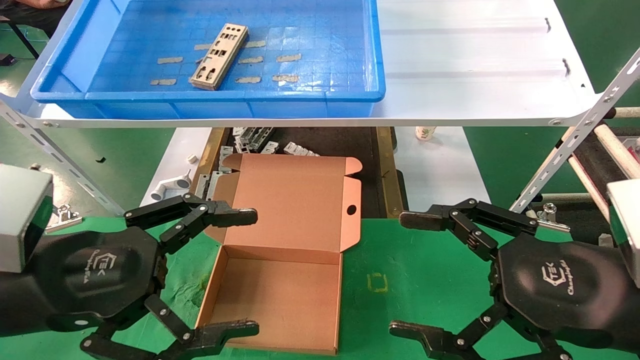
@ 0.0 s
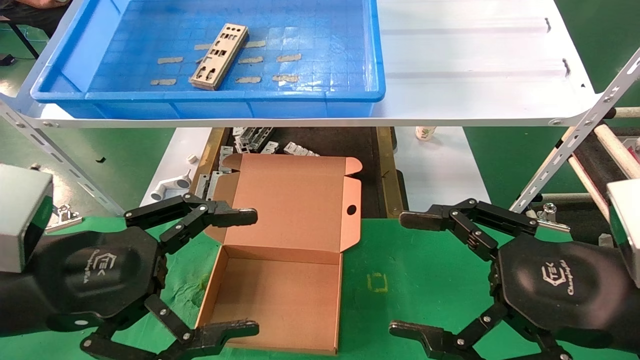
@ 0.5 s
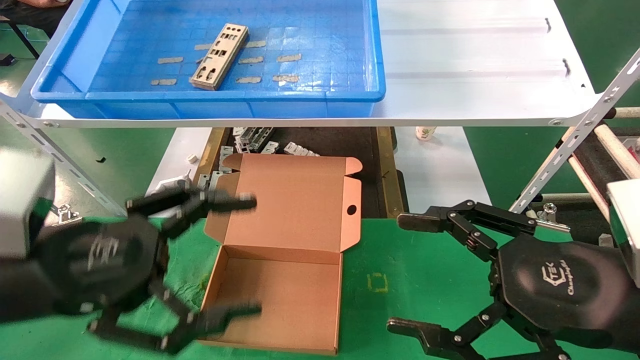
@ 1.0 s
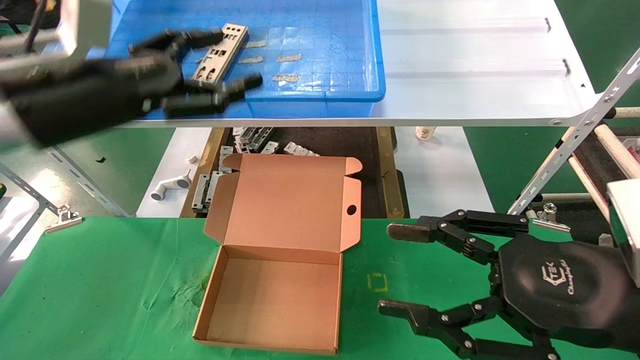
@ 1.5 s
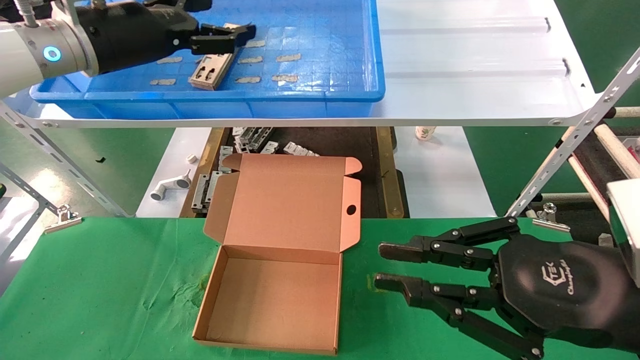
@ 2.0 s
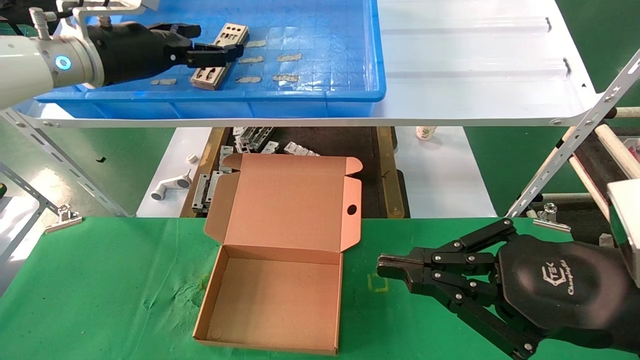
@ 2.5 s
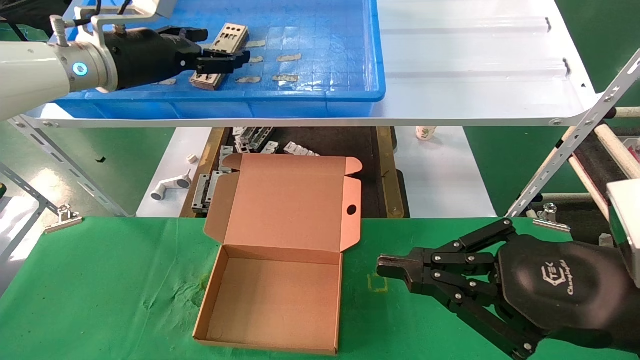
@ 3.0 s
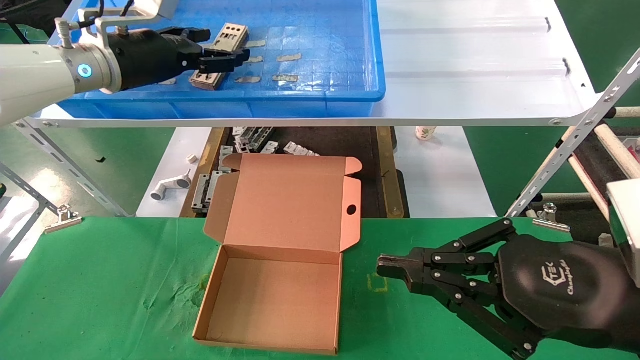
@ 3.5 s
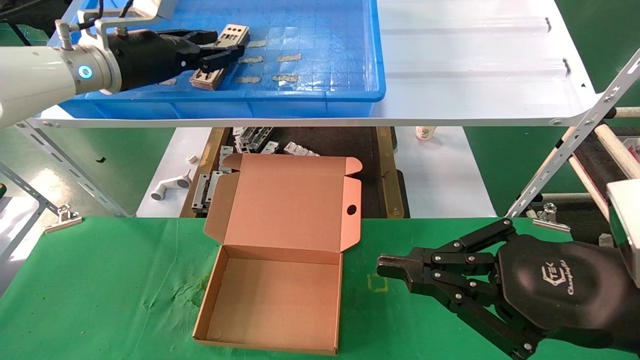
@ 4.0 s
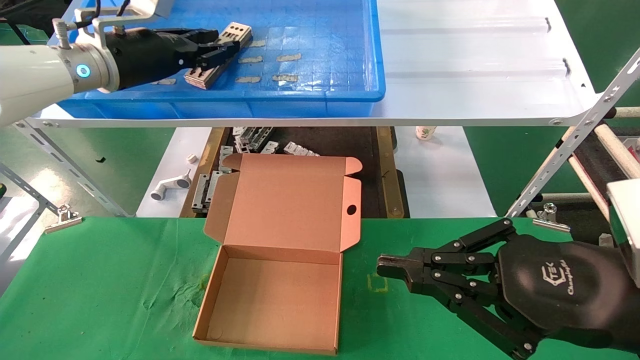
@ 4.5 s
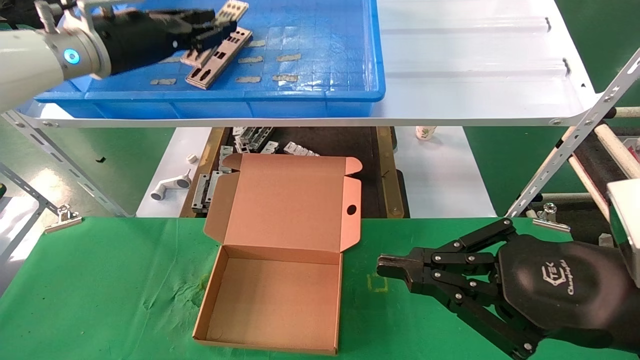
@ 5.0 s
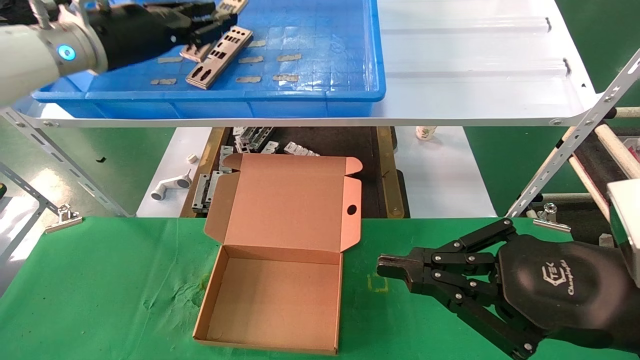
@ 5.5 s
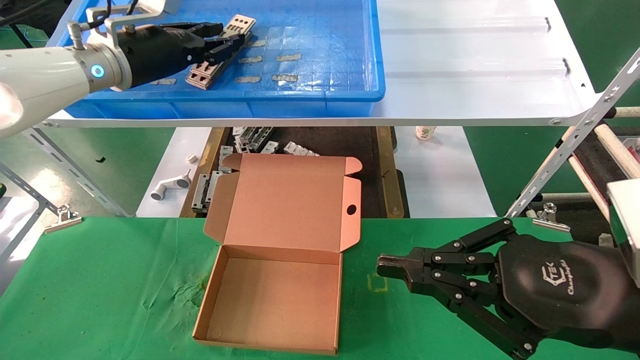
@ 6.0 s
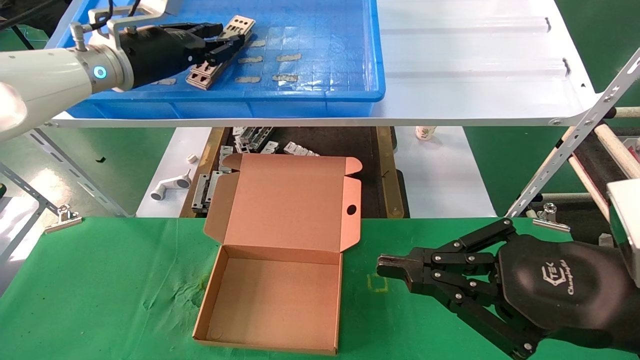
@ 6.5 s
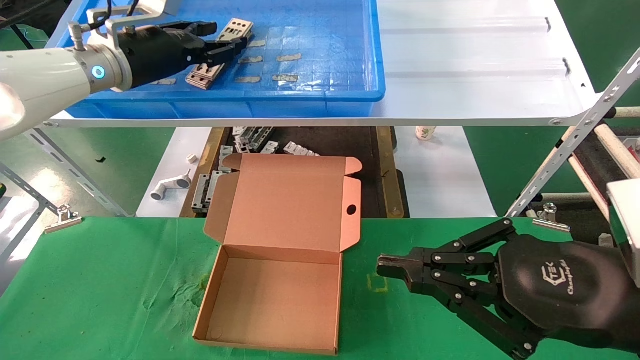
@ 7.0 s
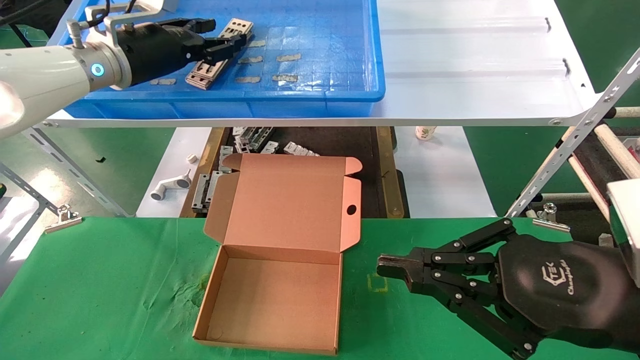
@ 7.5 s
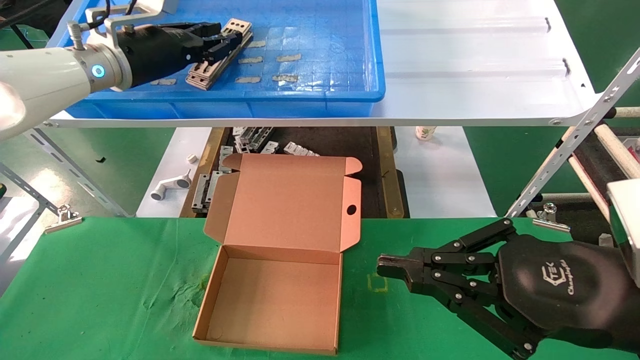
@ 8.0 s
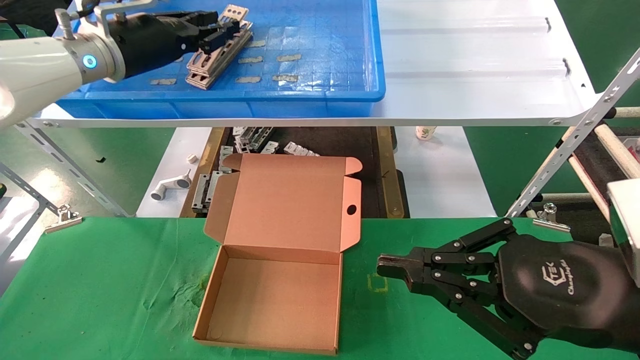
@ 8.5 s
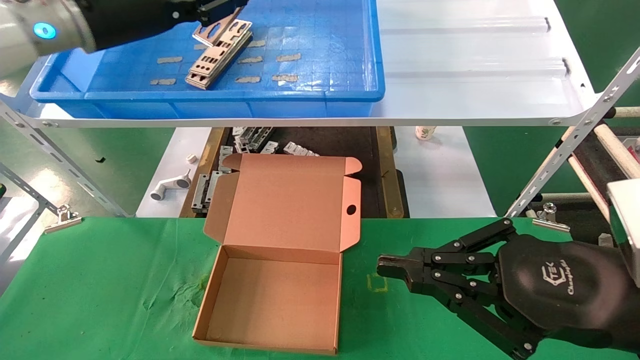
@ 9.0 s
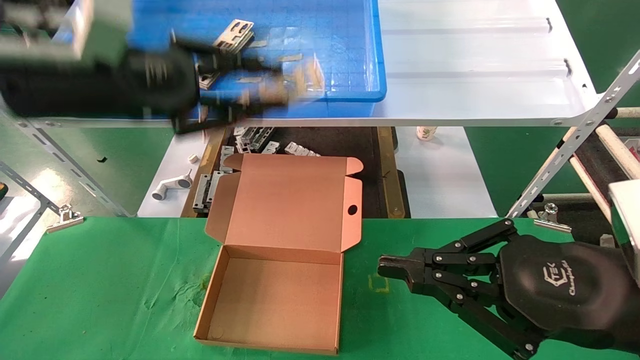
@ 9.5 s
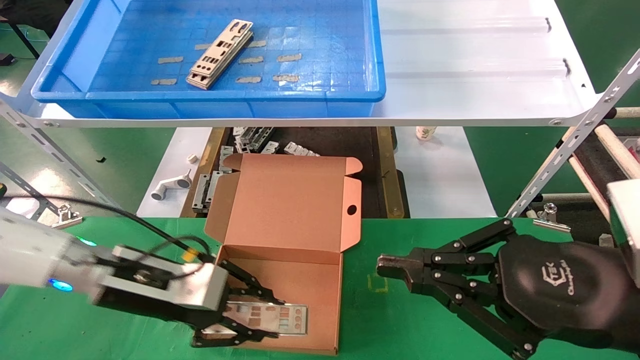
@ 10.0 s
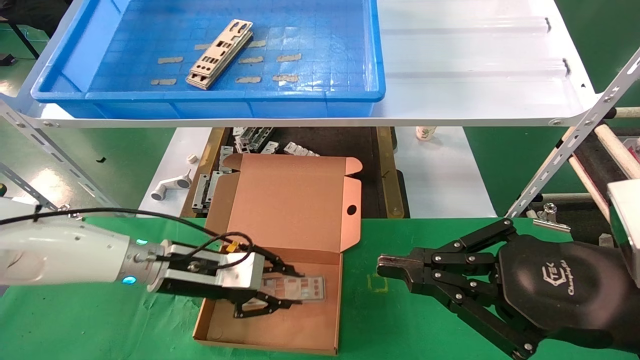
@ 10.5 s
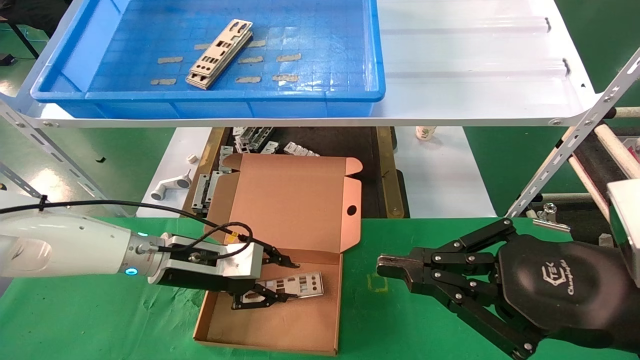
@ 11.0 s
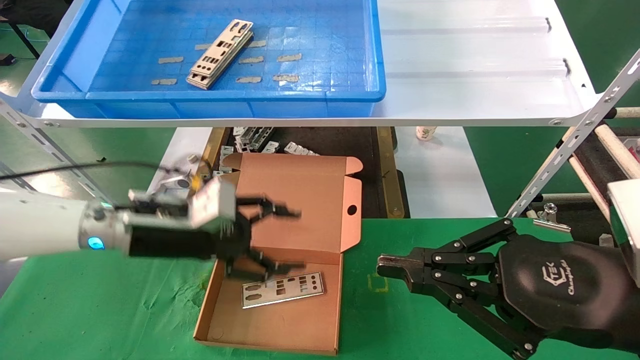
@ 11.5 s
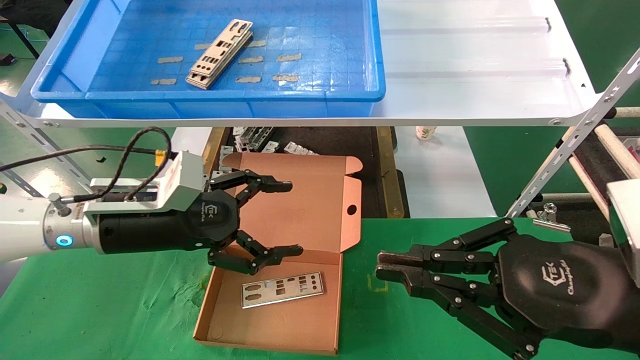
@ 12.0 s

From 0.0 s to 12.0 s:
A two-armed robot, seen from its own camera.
Task of the whole recording: pick up the parts on the tray and put them in the cardboard box.
Step, from 1.5 s to 8.5 s: Pick up the IO bracket from the container box.
Step, from 9.0 s to 11.0 s: Place the IO bracket into the ingredient slot.
From 0.0 s to 2.0 s: The right gripper closes up. The left gripper is displaced forward and upward by some 25 cm.
From 2.0 s to 4.0 s: The left gripper closes its fingers.
From 4.0 s to 6.0 s: The left gripper closes its fingers.
From 6.0 s to 8.0 s: Both grippers stay put.
From 8.0 s to 10.0 s: The left gripper is displaced downward and backward by approximately 25 cm.
From 10.0 s to 12.0 s: The left gripper opens its fingers.

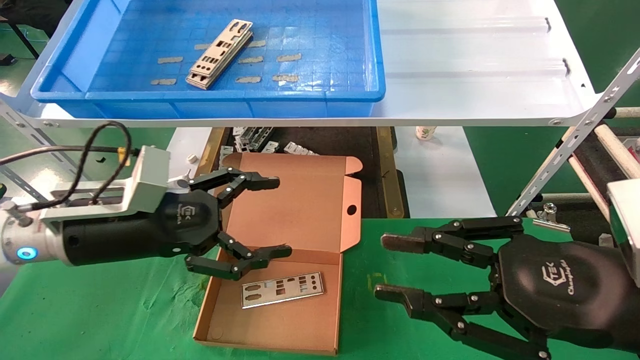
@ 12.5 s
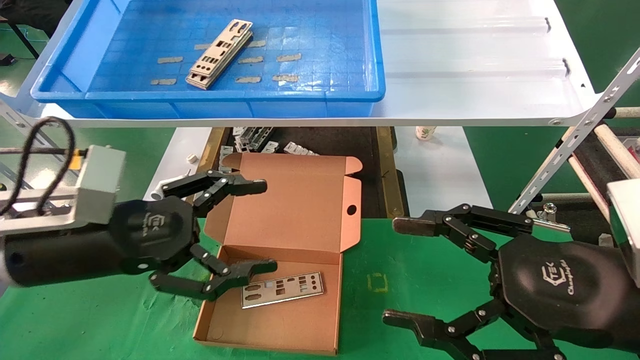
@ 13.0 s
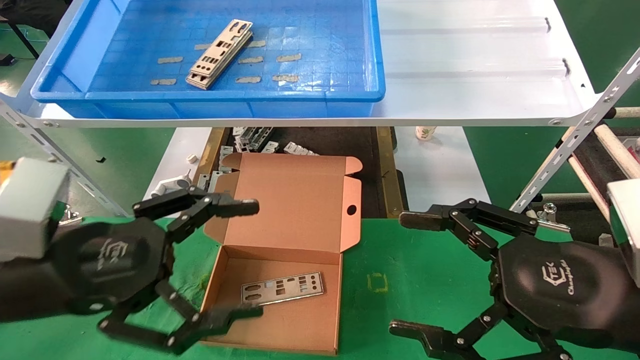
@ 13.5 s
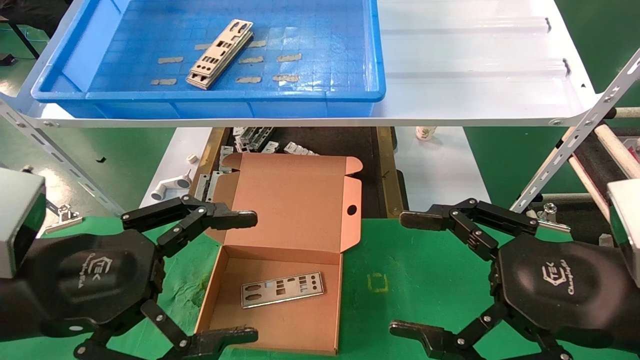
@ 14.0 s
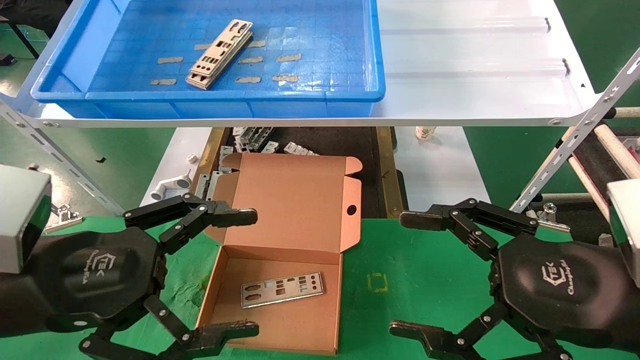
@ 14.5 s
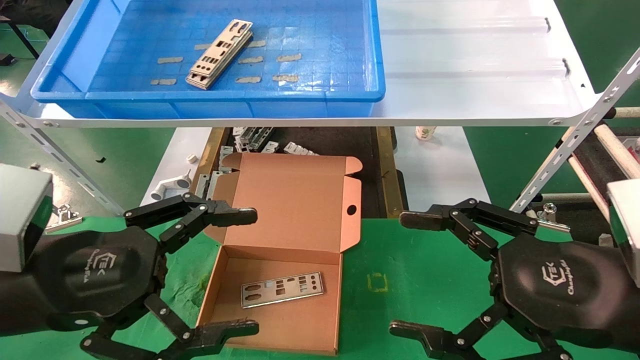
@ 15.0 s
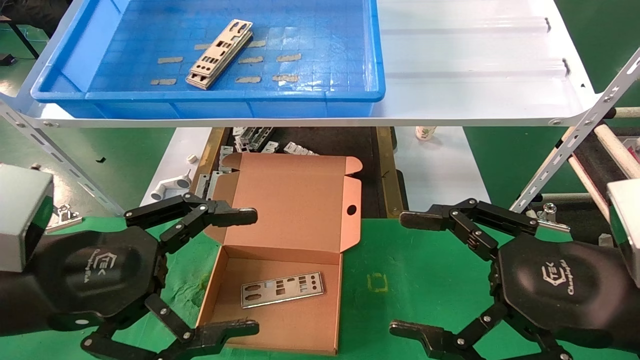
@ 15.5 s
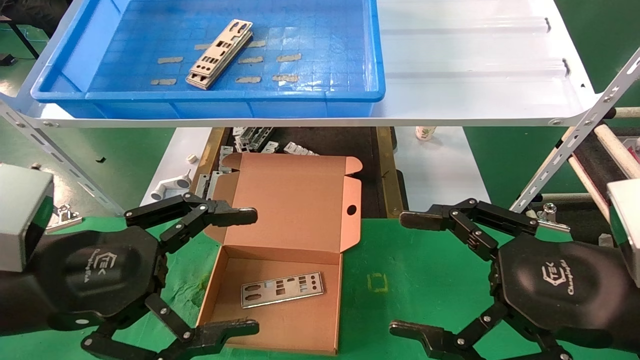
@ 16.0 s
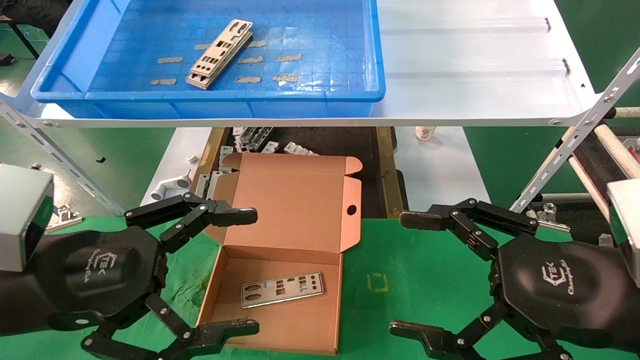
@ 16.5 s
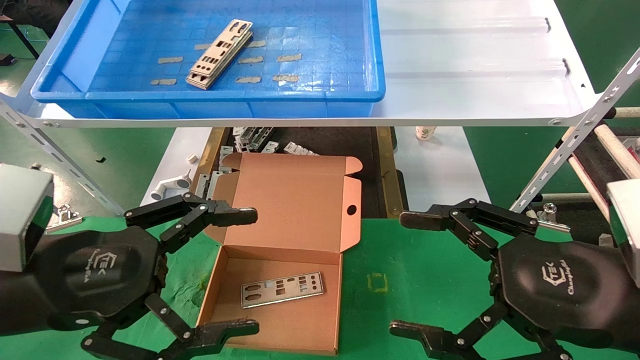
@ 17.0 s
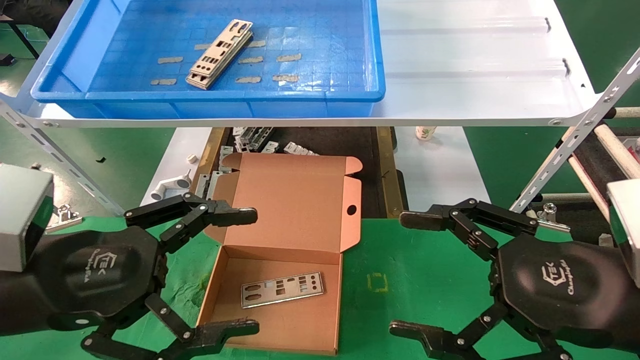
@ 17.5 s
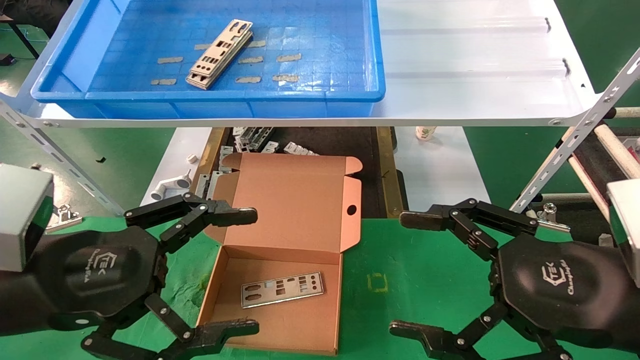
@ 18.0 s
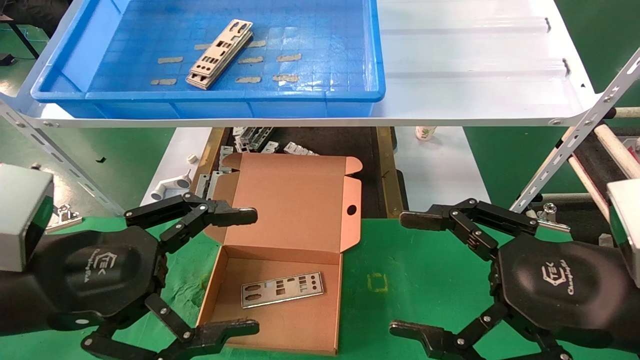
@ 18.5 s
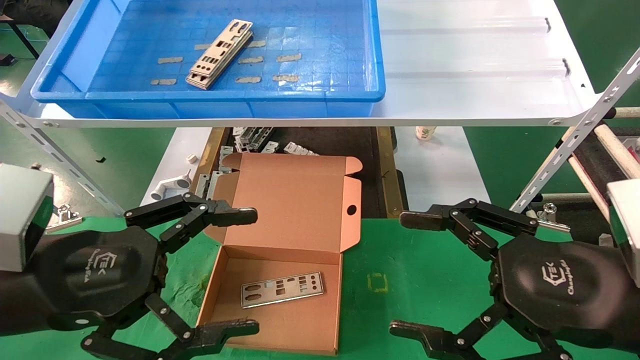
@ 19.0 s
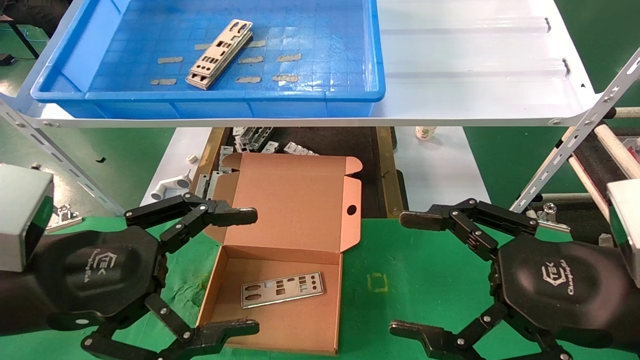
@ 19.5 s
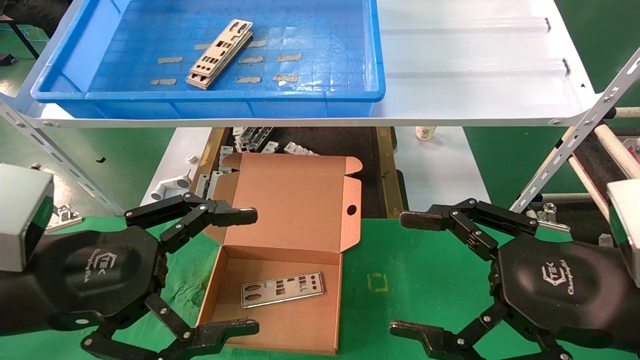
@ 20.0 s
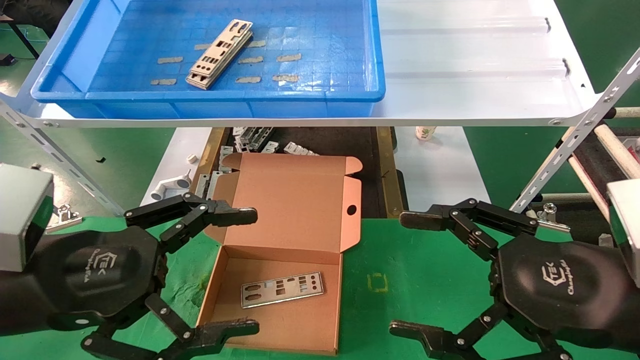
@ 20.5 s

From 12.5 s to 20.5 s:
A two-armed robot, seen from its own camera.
Task of the whole recording: pick up the parts on the tray and put them in the cardboard box.
From 12.5 s to 14.5 s: The right gripper opens, while the left gripper shifts some 10 cm backward.
From 14.5 s to 20.5 s: Both grippers stay about where they are.
